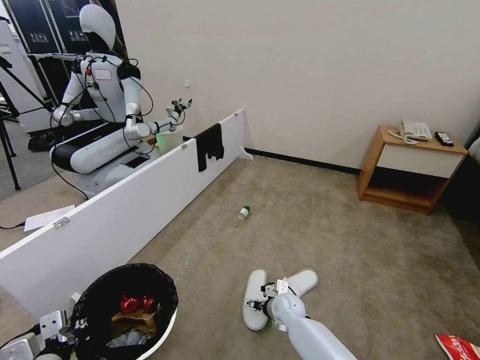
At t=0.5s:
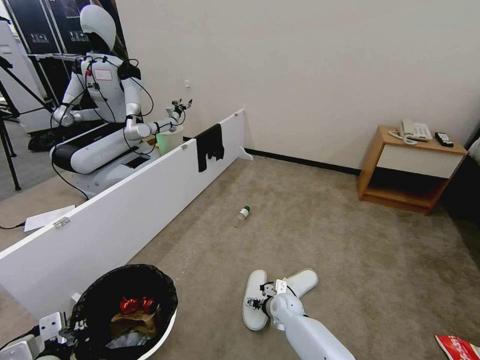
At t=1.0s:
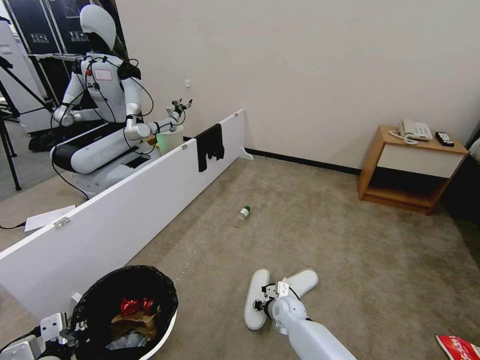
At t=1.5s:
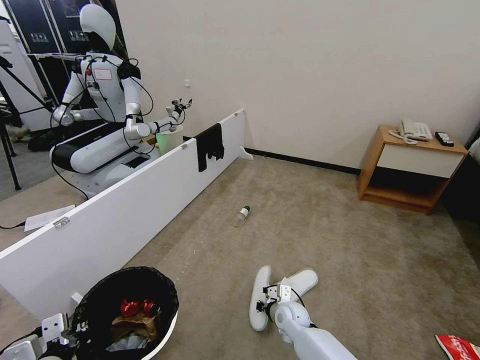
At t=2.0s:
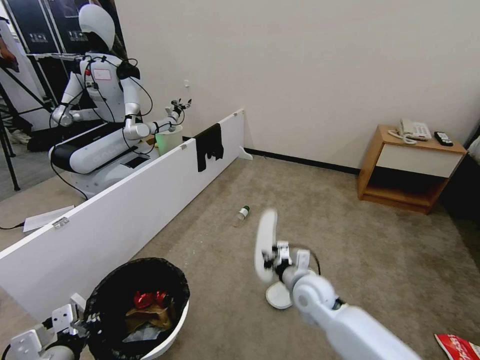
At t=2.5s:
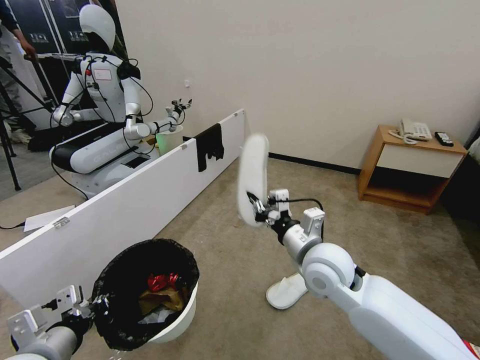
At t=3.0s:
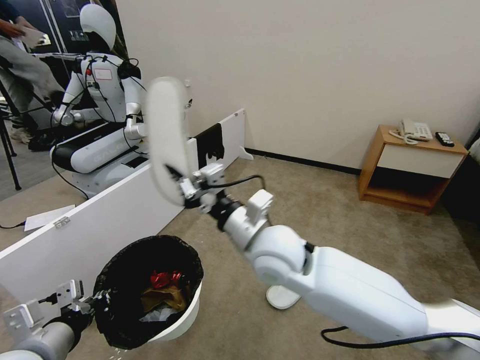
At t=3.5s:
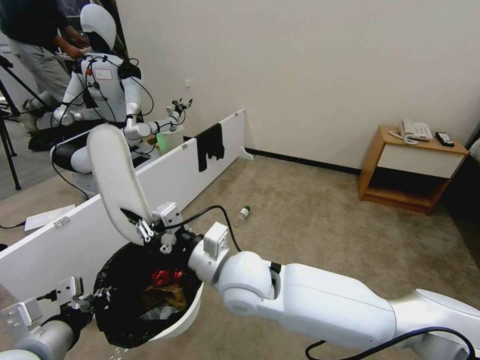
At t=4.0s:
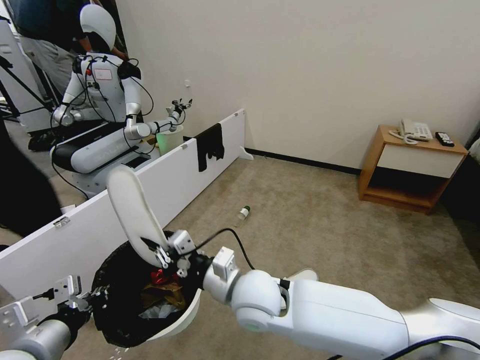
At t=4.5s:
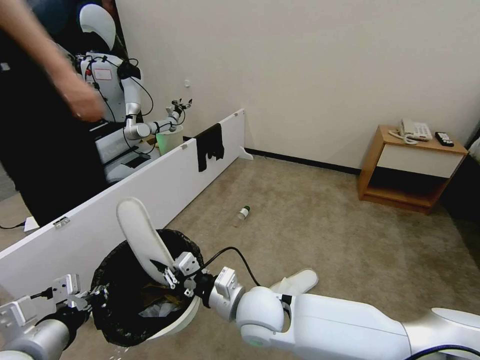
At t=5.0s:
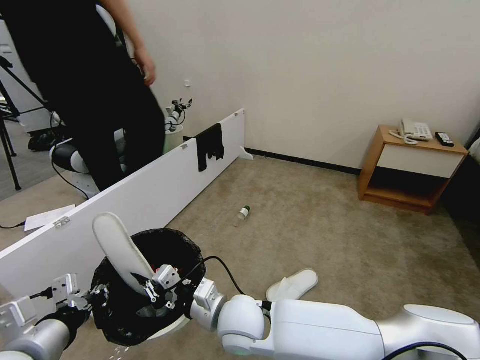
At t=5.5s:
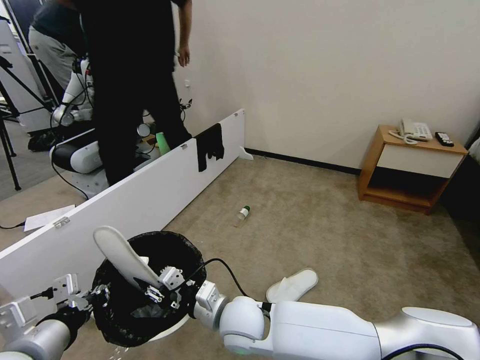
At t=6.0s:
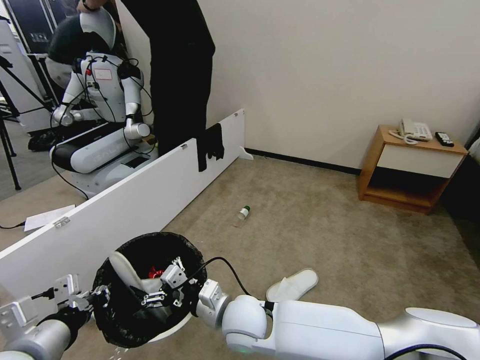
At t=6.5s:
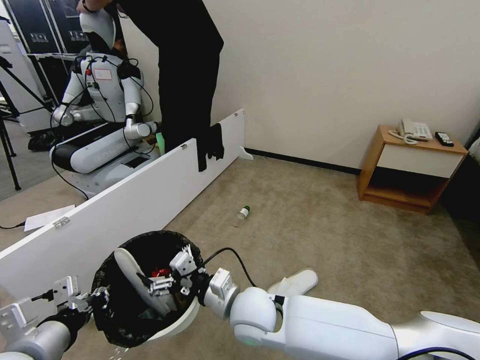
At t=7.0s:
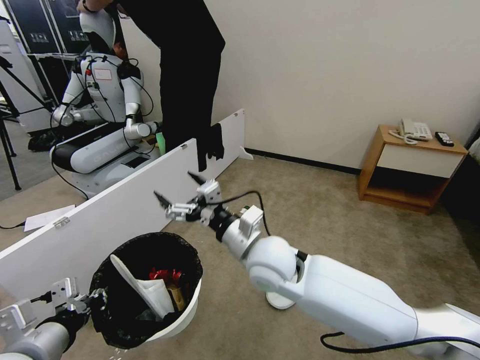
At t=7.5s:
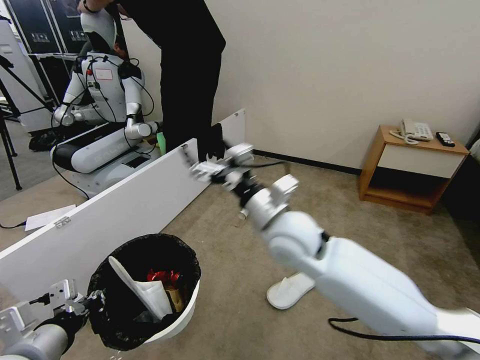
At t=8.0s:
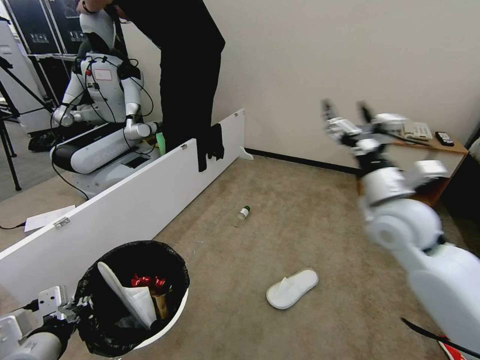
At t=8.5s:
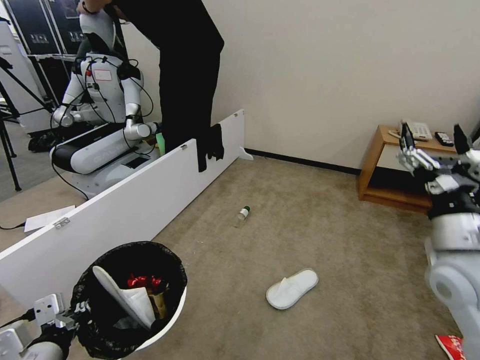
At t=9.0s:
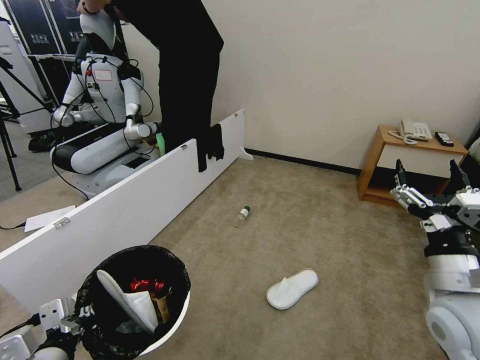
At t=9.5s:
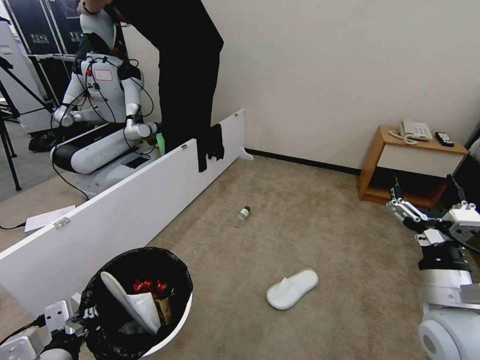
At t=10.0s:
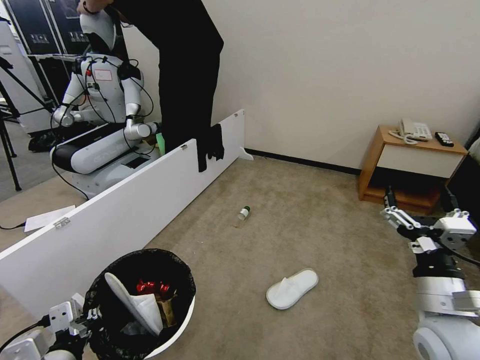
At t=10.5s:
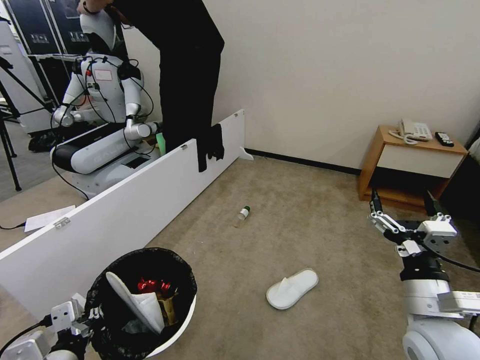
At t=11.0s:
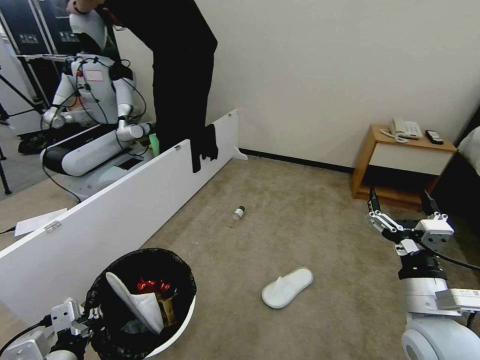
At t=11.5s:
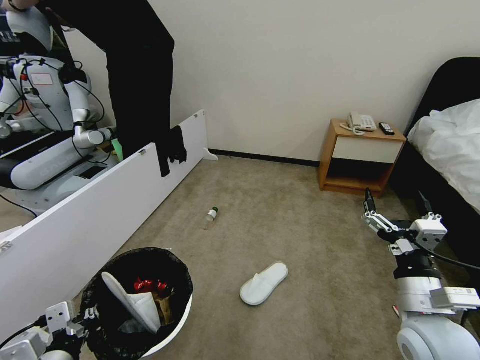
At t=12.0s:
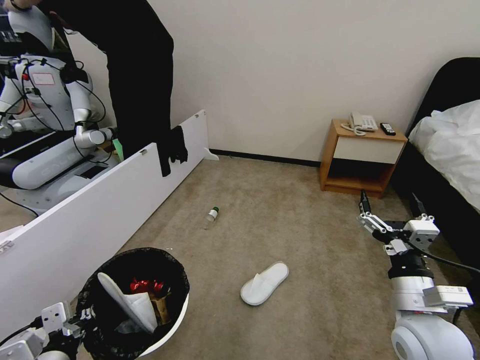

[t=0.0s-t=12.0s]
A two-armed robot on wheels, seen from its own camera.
Task of the whole recording: Pick up the trash bin, then pick up the garbage from the floor and place it into the trash bin.
t=0.0s to t=2.0s: The right gripper moves upward, roughly 15 cm, and closes its fingers.
t=2.0s to t=4.0s: The left gripper shifts roughly 10 cm upward. The right gripper is displaced to the left, upward and backward by roughly 20 cm.
t=4.0s to t=6.0s: The right gripper shifts approximately 10 cm downward, and opens.
t=6.0s to t=8.0s: The right gripper travels to the right and upward by approximately 35 cm.
t=8.0s to t=10.0s: The right gripper moves backward and downward, some 20 cm.

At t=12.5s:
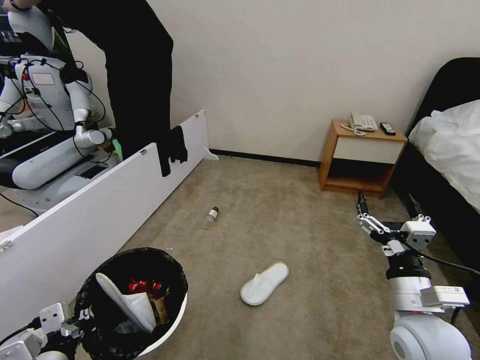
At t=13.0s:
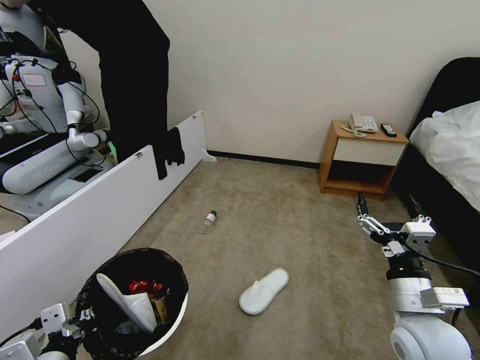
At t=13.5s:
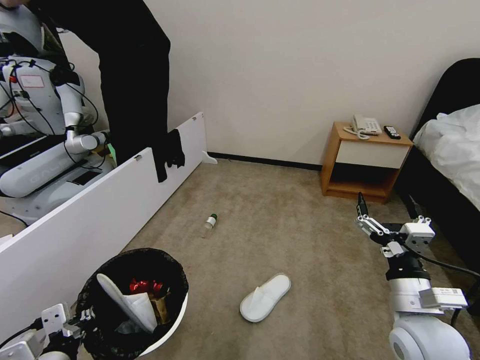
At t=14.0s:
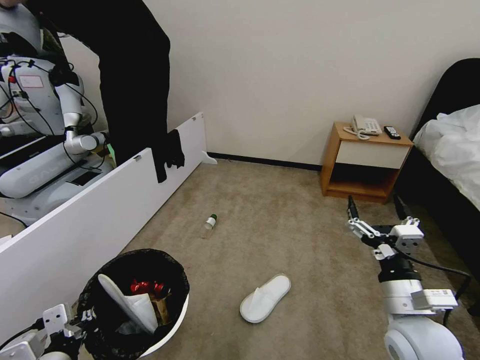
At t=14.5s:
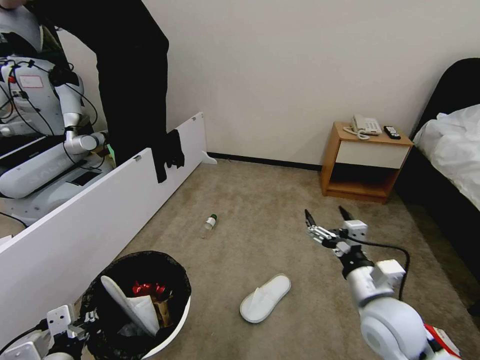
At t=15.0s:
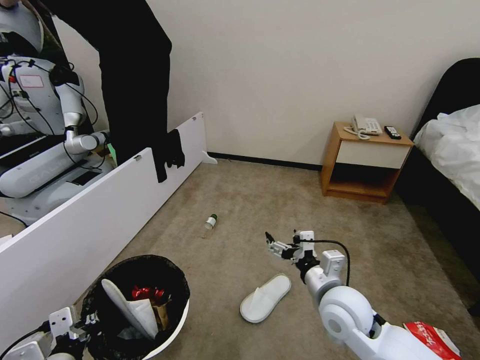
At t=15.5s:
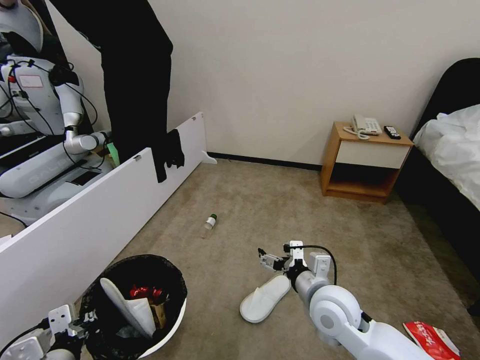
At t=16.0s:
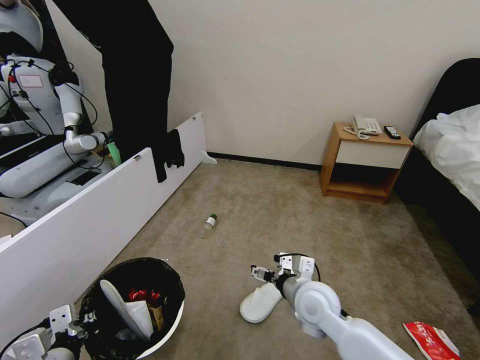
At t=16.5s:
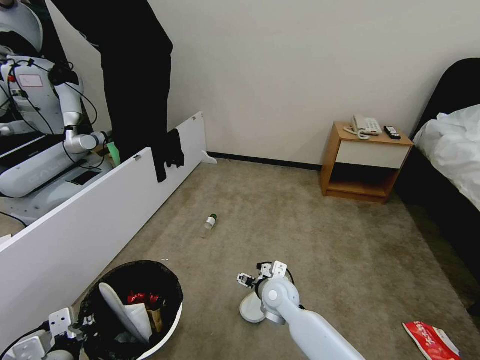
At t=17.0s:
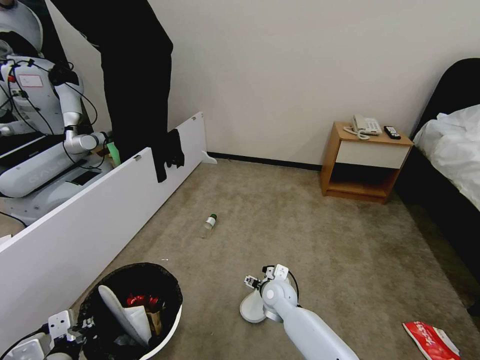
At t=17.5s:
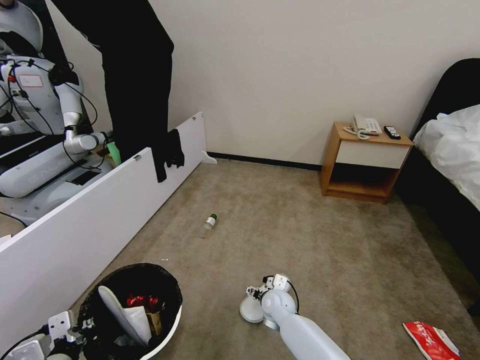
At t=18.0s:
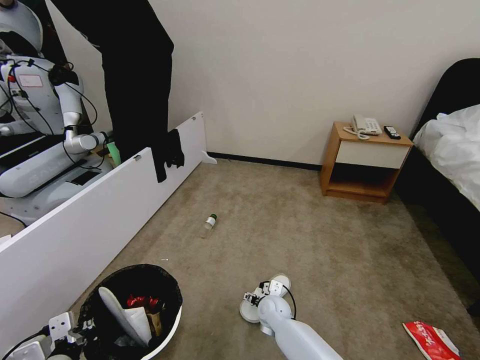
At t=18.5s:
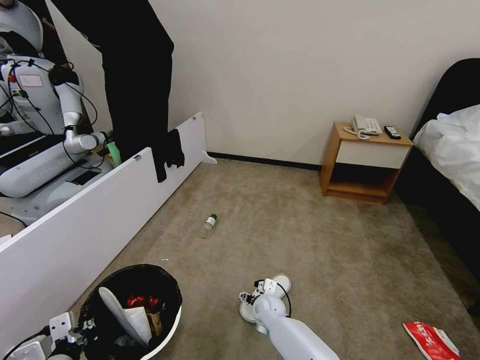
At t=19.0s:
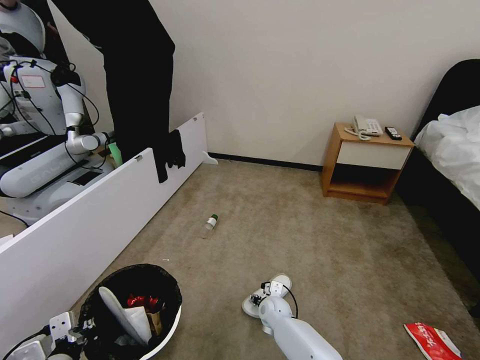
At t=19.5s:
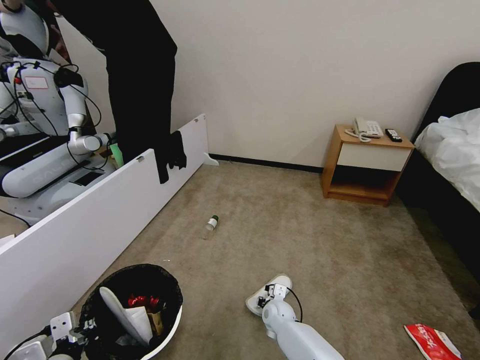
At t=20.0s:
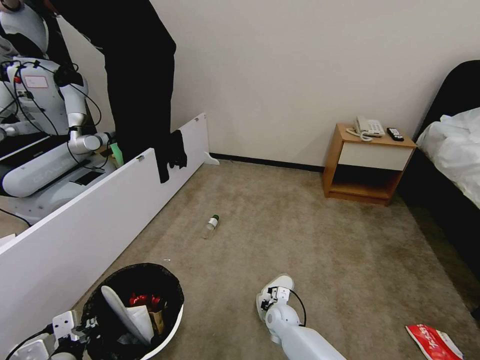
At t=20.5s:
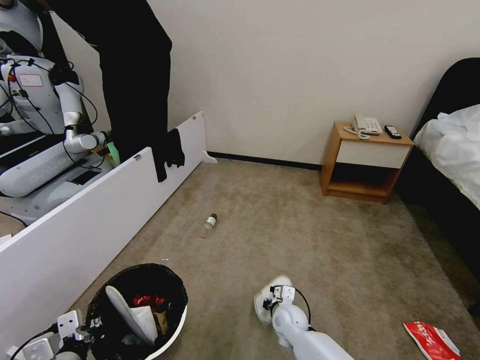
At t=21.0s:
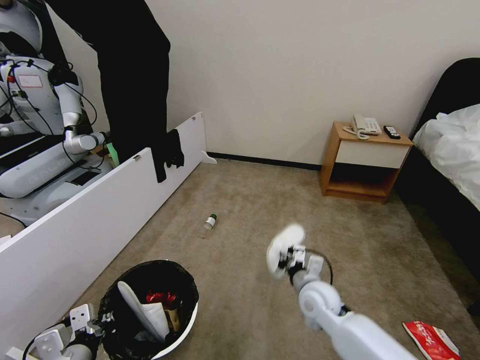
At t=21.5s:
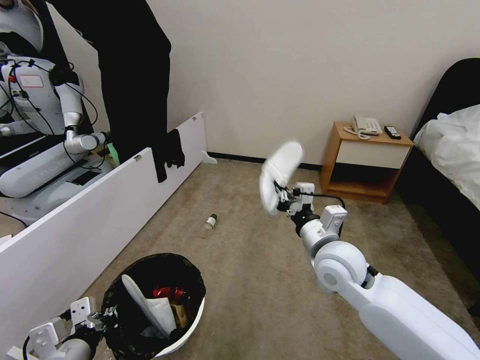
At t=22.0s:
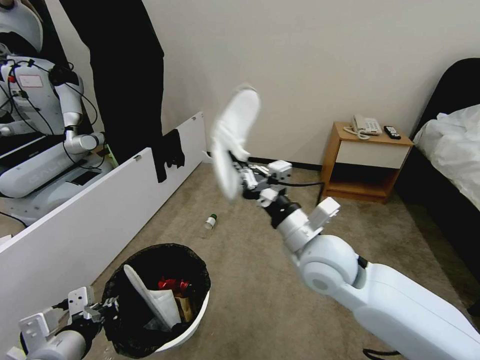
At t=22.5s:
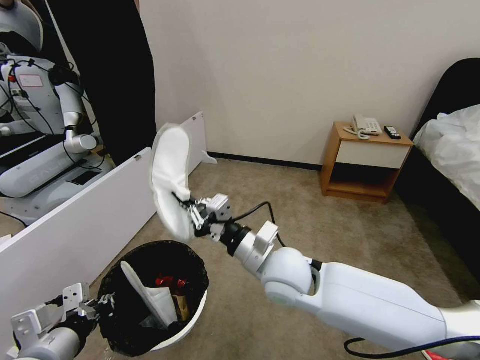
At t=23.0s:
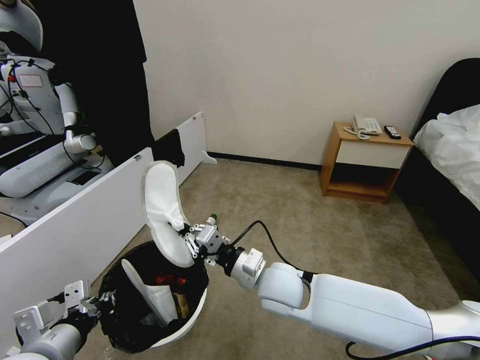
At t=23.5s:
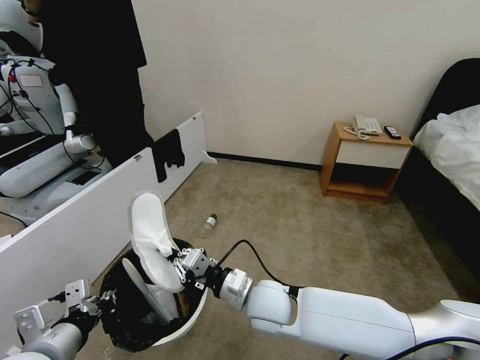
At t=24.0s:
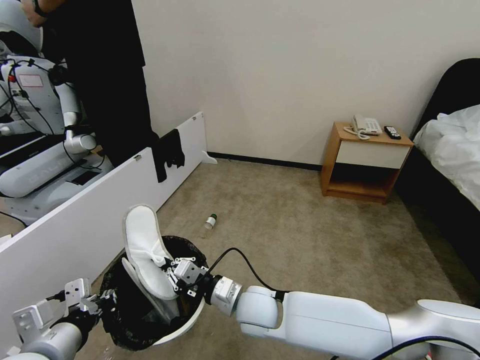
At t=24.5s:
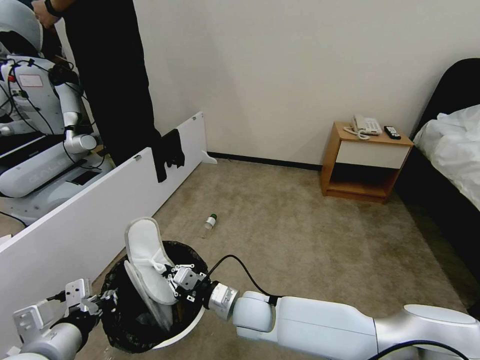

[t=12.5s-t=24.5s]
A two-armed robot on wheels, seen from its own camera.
Task of the whole recording: Pick up the trash bin, then pick up the garbage from the floor and place it into the trash bin.
t=14.5s to t=16.5s: The right gripper travels to the left, downward and forward by some 25 cm.
t=16.5s to t=18.5s: The right gripper moves downward, about 10 cm.
t=18.5s to t=20.5s: The right gripper shifts about 5 cm to the right, and closes up.
t=20.5s to t=22.5s: The right gripper heads upward, covering about 30 cm. Meanwhile the left gripper travels upward by roughly 10 cm.
t=22.5s to t=24.5s: The right gripper moves downward, roughly 15 cm.

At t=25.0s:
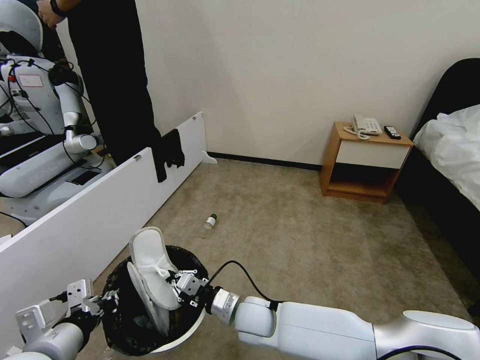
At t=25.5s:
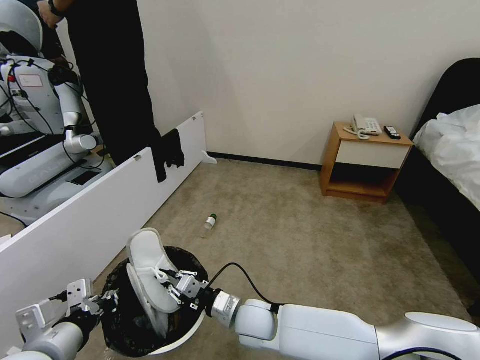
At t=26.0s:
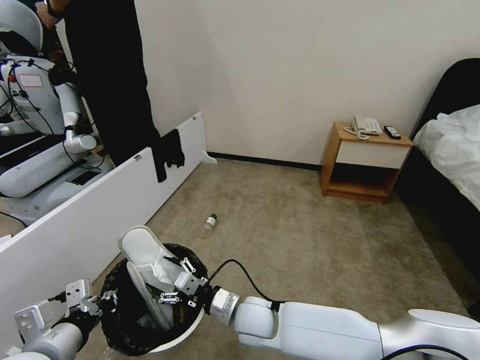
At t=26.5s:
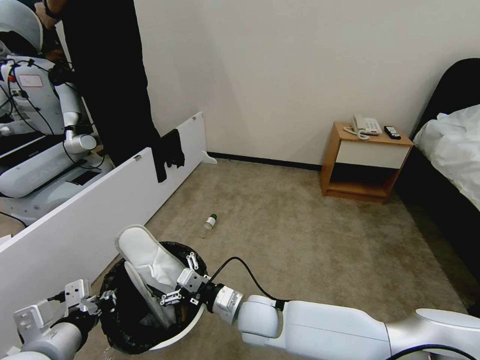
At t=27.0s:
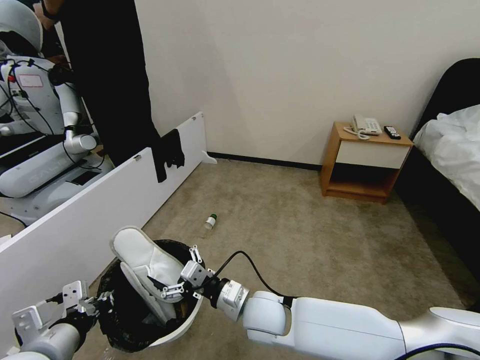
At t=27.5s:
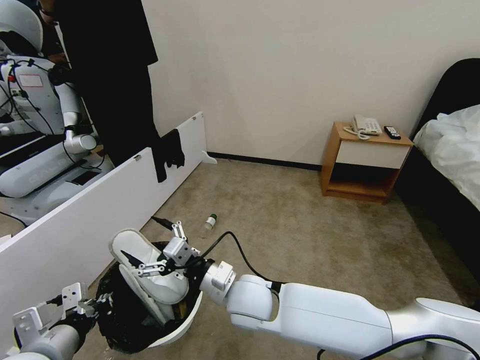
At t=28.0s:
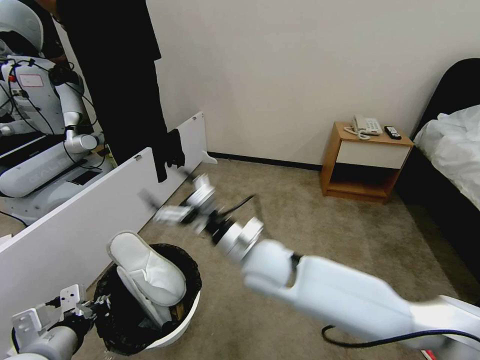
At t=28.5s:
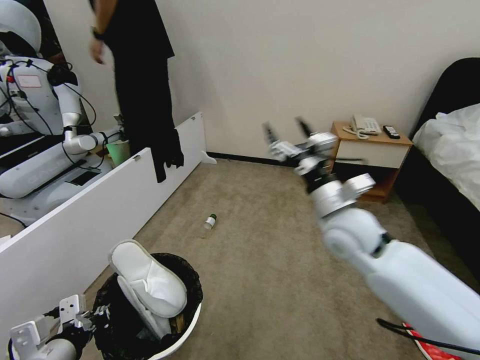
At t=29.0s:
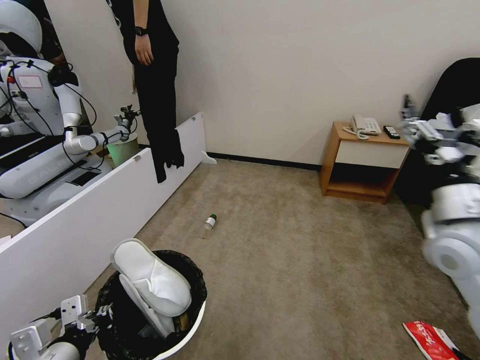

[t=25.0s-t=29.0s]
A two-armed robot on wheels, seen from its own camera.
Task of the whole recording: Pick up the trash bin, then pick up the garbage from the floor and place it into the trash bin.
t=25.0s to t=27.0s: The right gripper heads upward, covering about 5 cm, and opens up.
t=27.0s to t=29.0s: The right gripper travels to the right and upward by some 40 cm.
